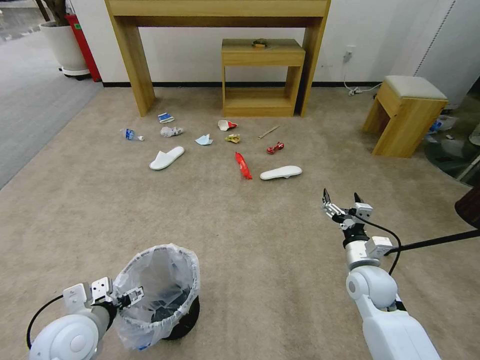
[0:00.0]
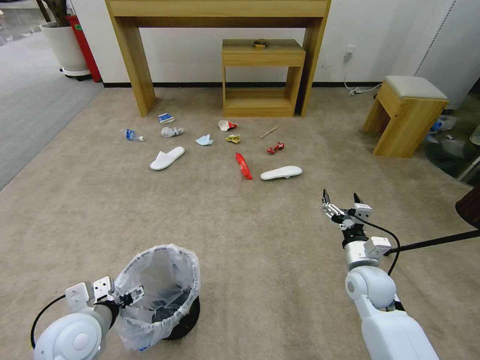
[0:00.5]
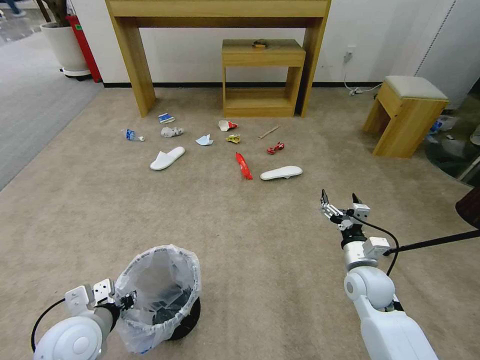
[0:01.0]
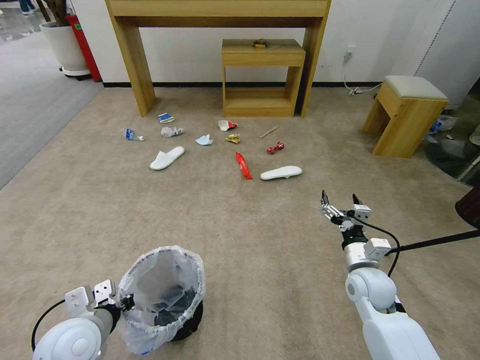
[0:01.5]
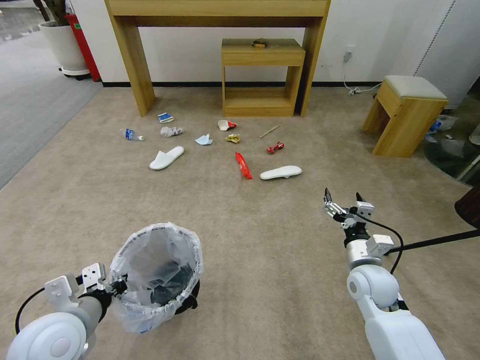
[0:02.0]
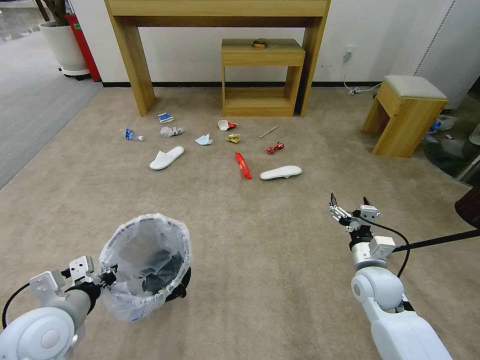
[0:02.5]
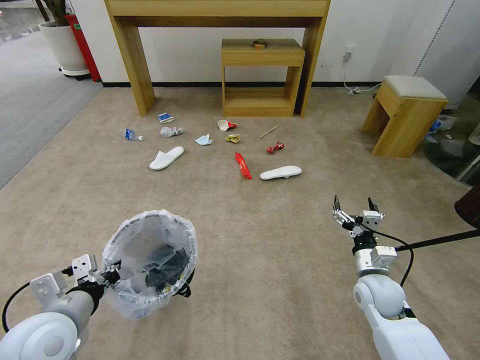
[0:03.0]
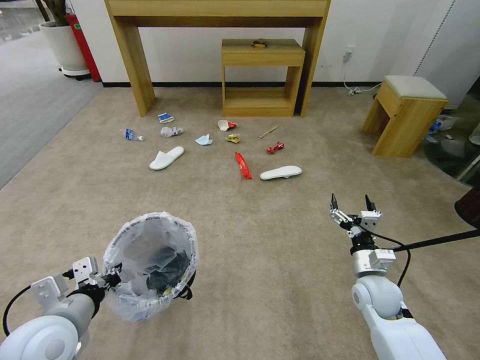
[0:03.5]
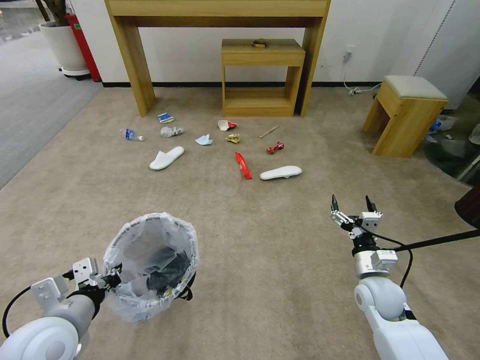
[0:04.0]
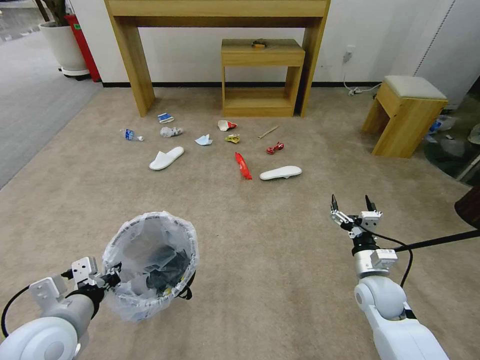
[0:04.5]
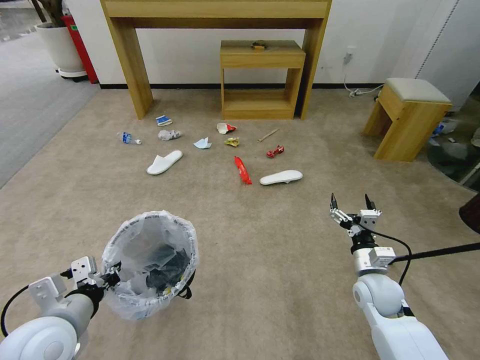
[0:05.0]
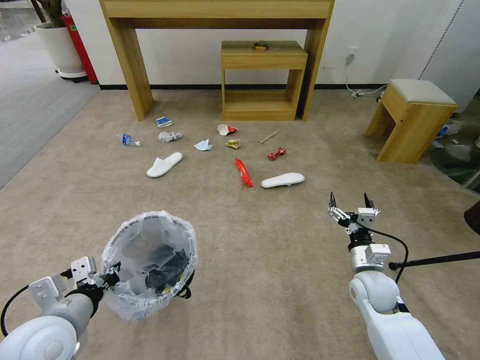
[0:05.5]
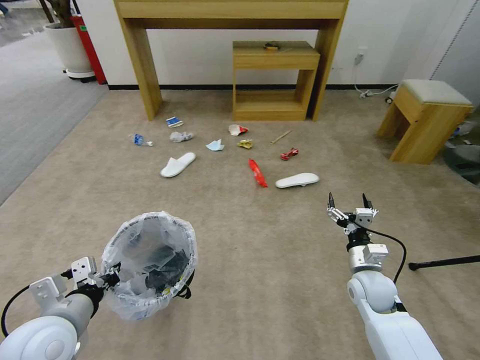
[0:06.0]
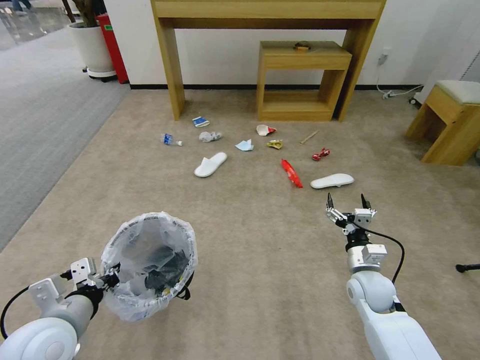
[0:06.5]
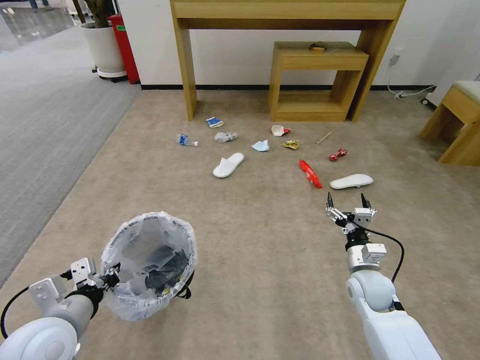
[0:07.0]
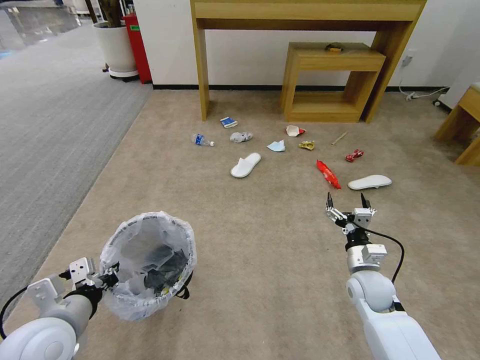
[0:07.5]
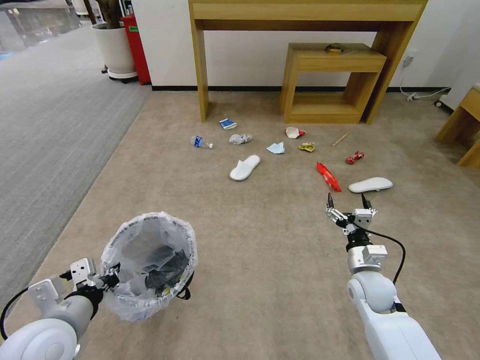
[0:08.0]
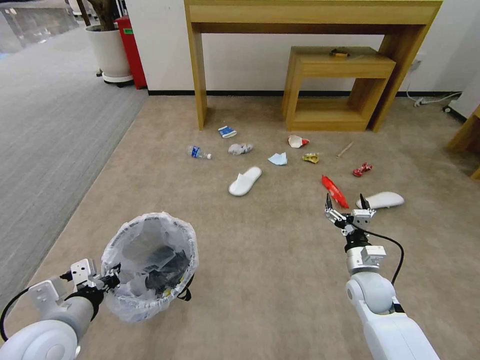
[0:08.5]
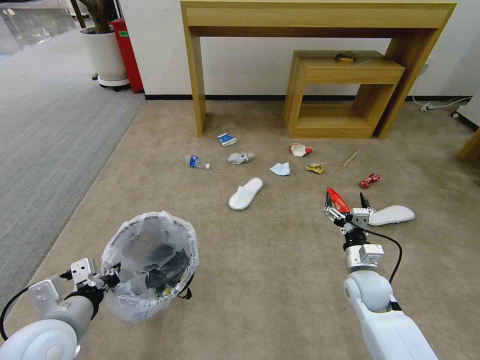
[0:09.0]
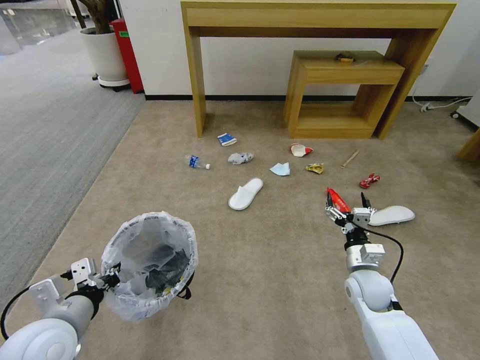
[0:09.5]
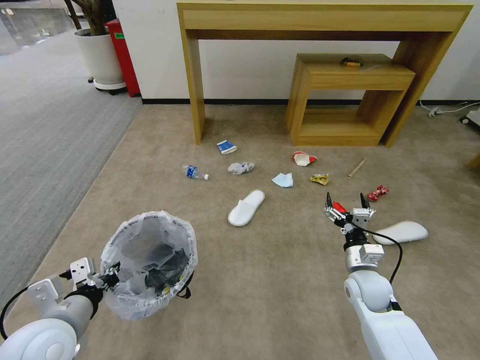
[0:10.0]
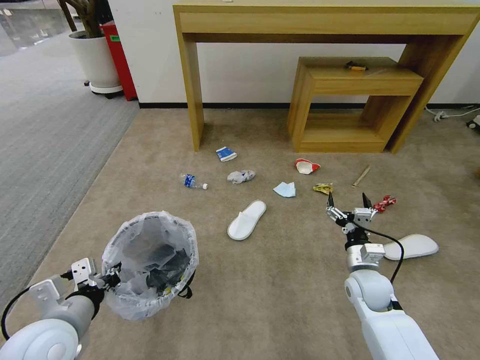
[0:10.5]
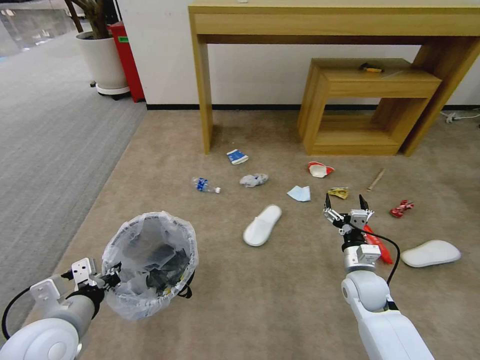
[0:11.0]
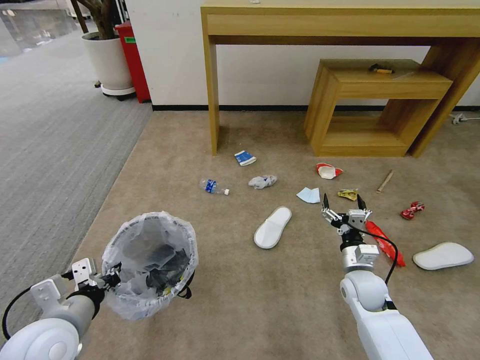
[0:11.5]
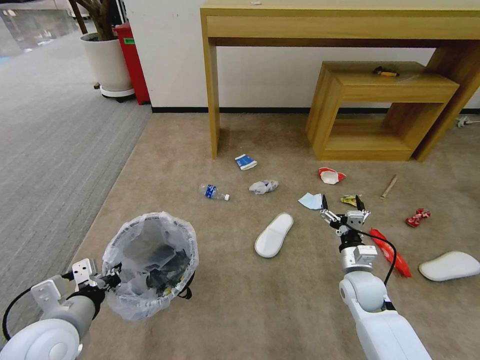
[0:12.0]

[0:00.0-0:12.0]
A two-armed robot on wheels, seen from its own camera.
Task of the whole recording: Pick up the trash bin and place the garbage on the floor into it.
0:00.0 to 0:02.0: The left gripper closes up.
0:02.0 to 0:06.0: The grippers make only small movements.

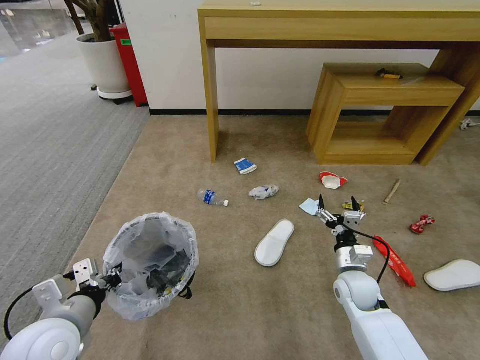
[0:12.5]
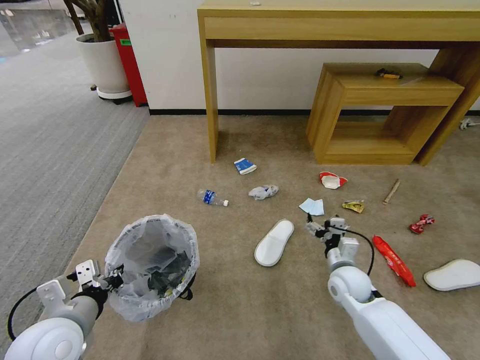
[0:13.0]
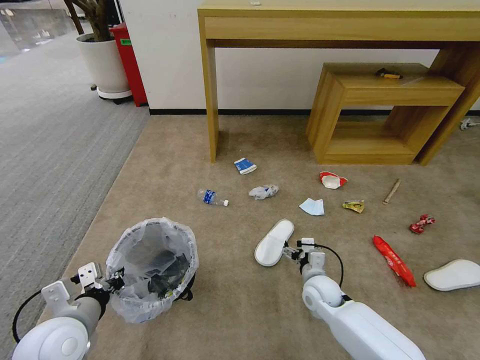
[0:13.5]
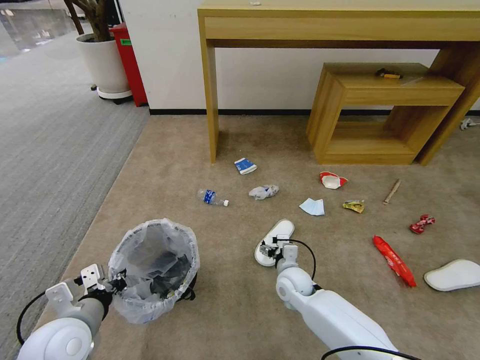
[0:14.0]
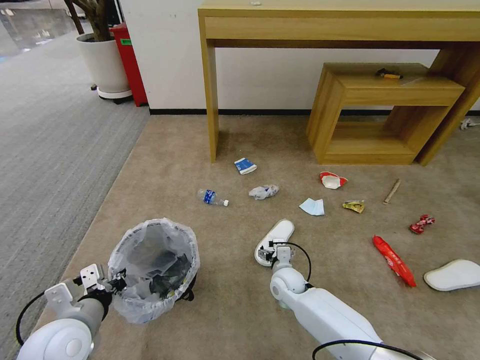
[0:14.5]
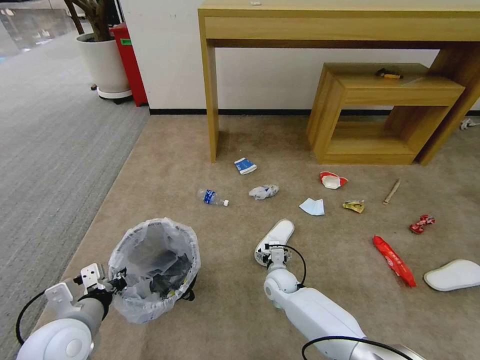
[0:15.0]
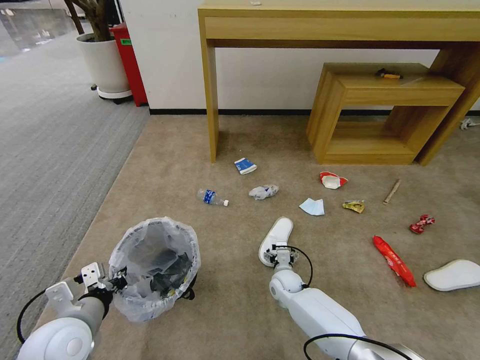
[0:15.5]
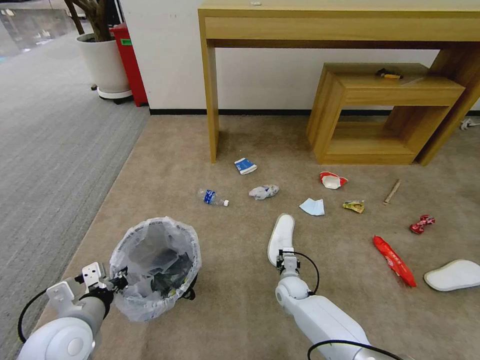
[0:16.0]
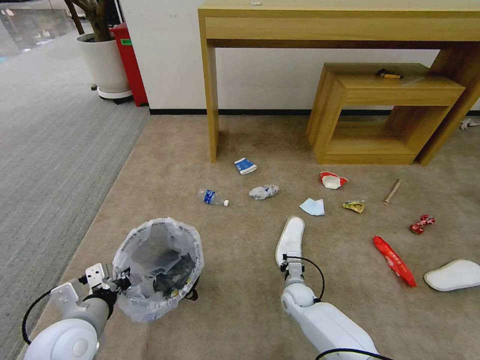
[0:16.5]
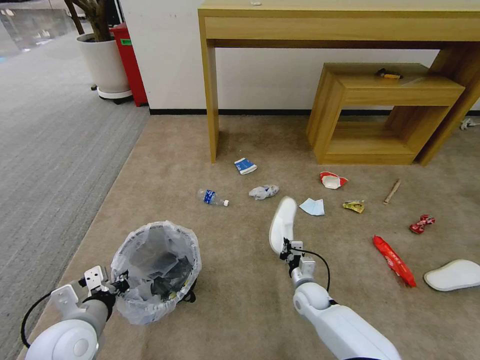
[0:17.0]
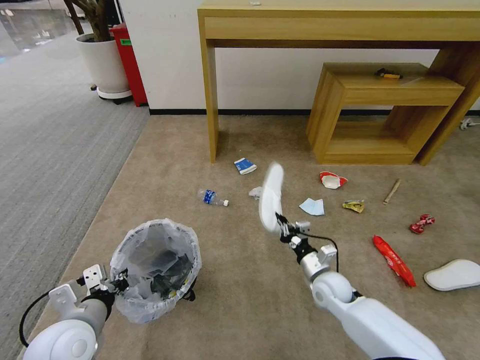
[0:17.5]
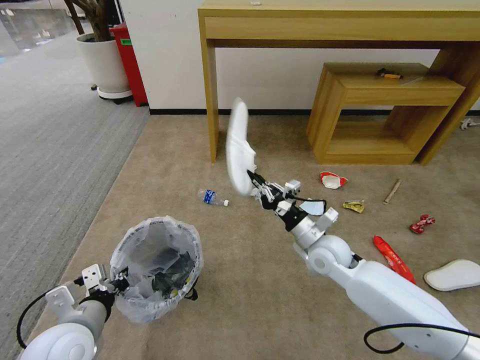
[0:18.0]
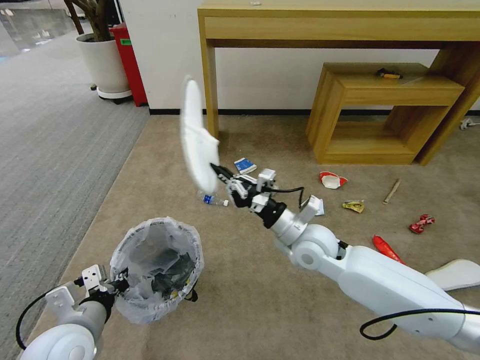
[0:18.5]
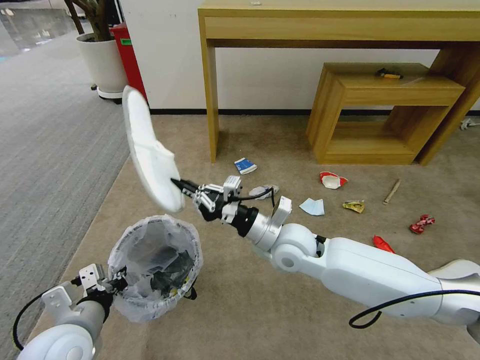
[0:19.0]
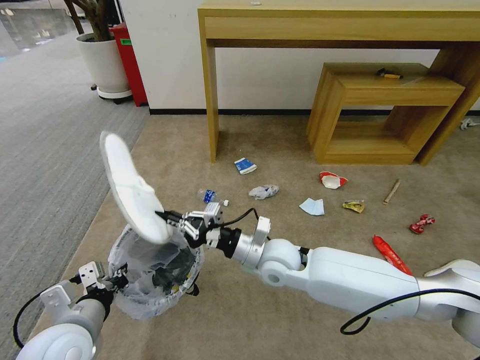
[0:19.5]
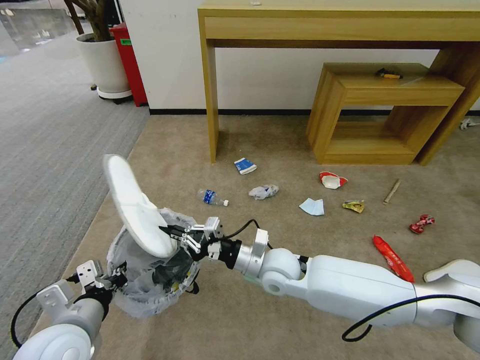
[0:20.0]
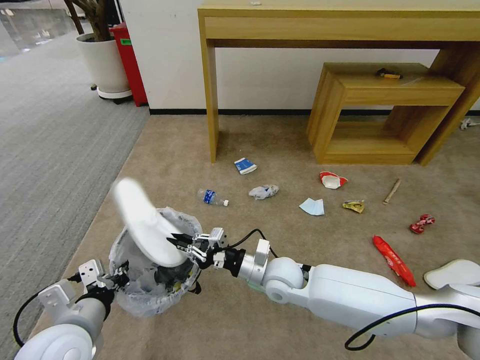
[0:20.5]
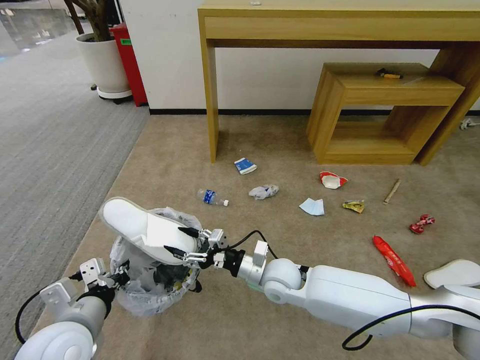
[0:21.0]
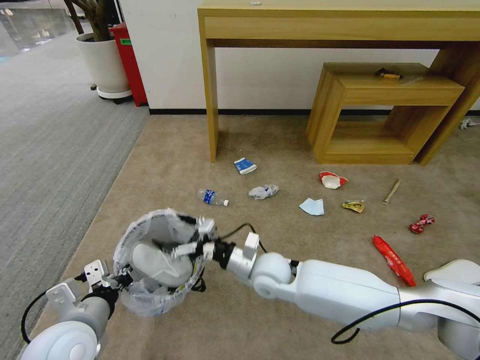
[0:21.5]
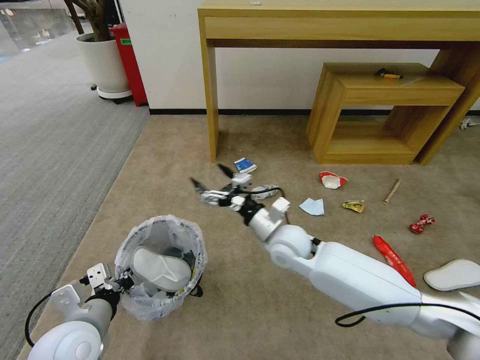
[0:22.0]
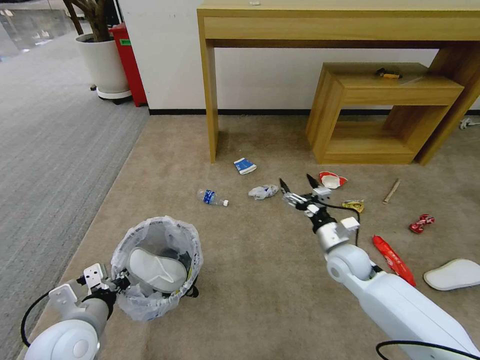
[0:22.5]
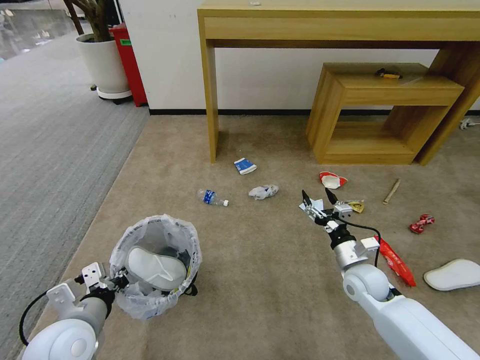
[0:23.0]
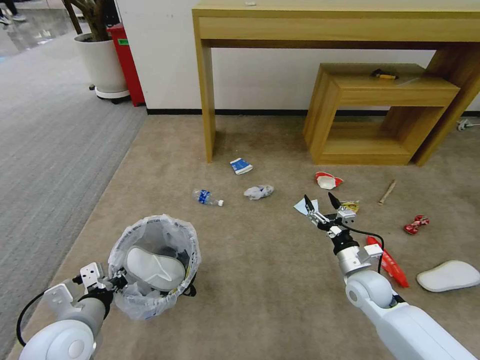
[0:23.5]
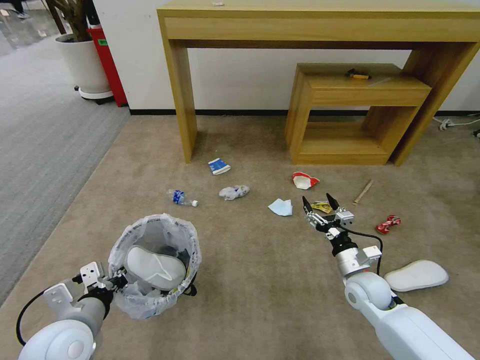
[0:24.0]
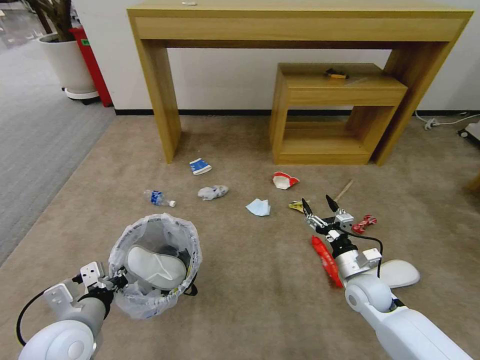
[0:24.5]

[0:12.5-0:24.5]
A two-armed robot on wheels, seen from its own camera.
Task of the whole recording: Pick up the trash bin and place the garbage on the floor into it.
0:12.5 to 0:14.5: The right gripper goes about 15 cm to the left and downward.
0:14.5 to 0:16.5: The right gripper travels downward by some 10 cm, and closes.
0:16.5 to 0:18.5: The right gripper shifts some 30 cm upward.
0:18.5 to 0:20.5: The right gripper shifts about 10 cm downward and to the left.
0:20.5 to 0:22.5: The right gripper travels to the right by roughly 15 cm, and opens.
0:22.5 to 0:24.5: The right gripper goes approximately 10 cm backward and downward.

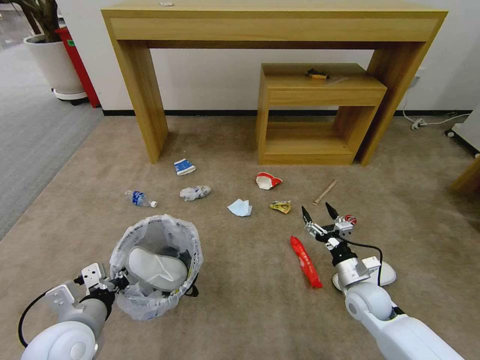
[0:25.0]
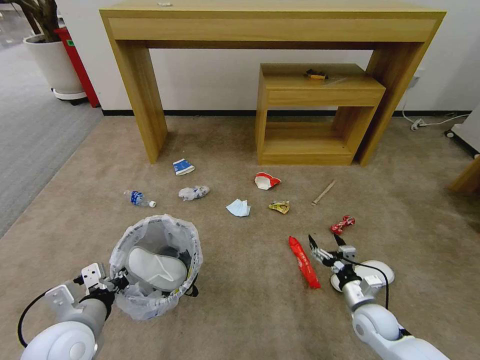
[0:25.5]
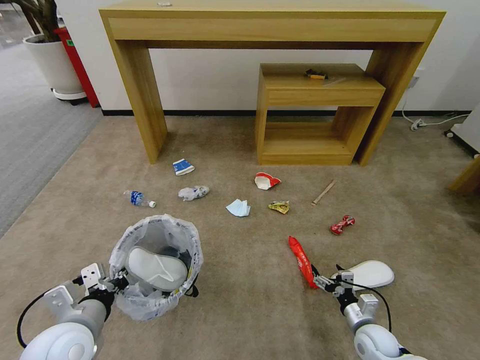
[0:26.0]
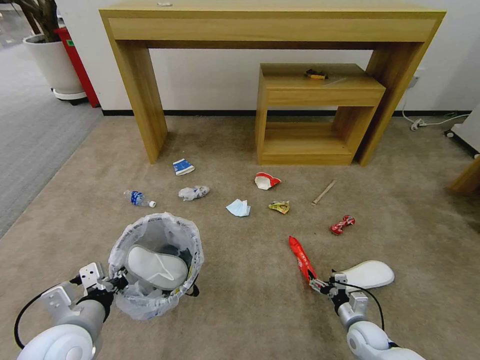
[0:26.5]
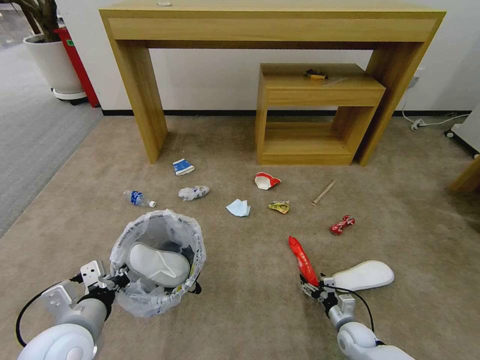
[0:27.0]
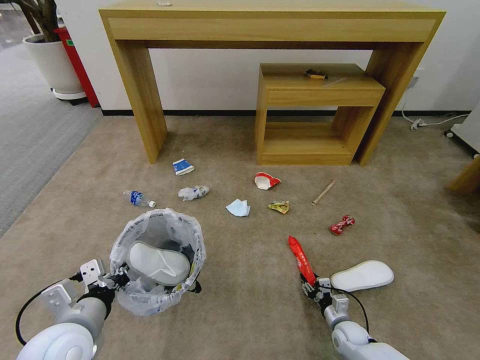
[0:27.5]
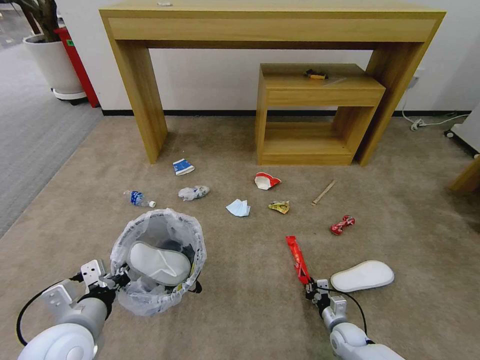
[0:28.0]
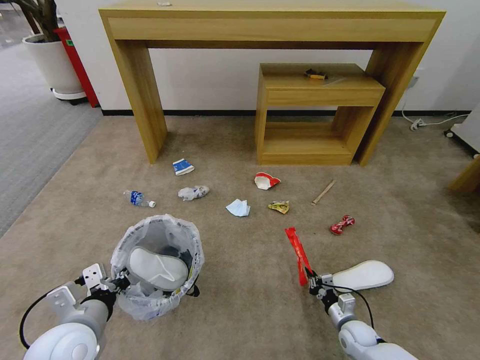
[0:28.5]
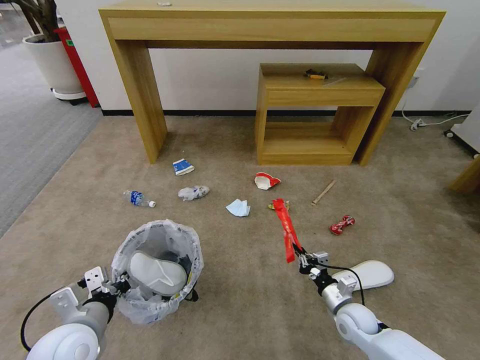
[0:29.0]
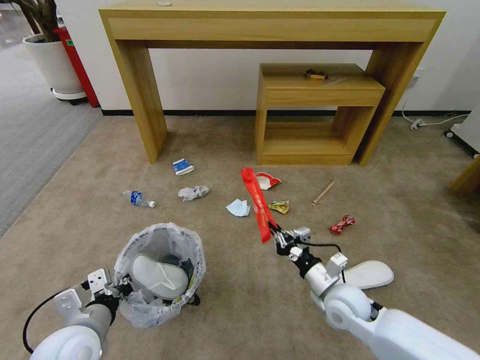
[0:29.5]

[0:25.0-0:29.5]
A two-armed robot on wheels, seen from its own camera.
Task of the whole recording: Pick up the trash bin and place the garbage on the floor into it.
0:25.0 to 0:27.0: The right gripper shifts about 15 cm downward.
0:27.0 to 0:29.5: The right gripper goes some 25 cm upward and to the left, and closes its fingers.
